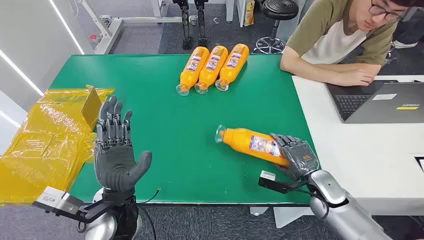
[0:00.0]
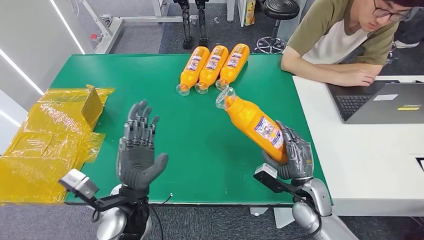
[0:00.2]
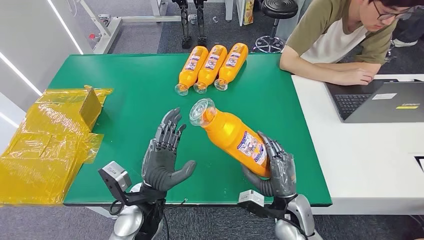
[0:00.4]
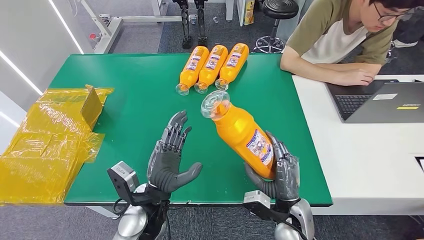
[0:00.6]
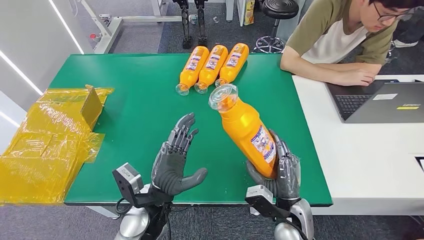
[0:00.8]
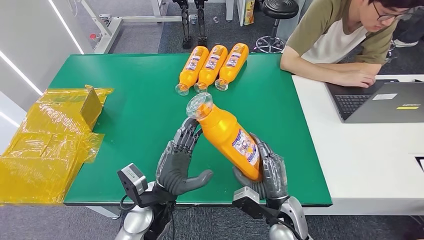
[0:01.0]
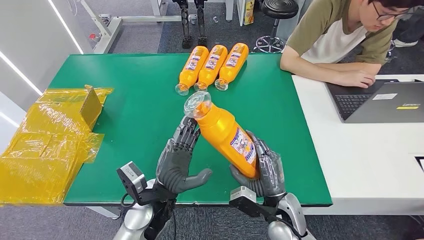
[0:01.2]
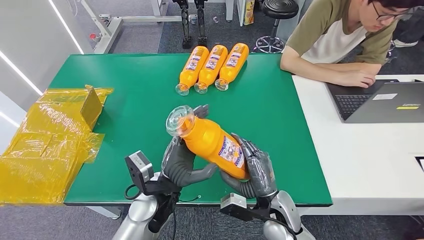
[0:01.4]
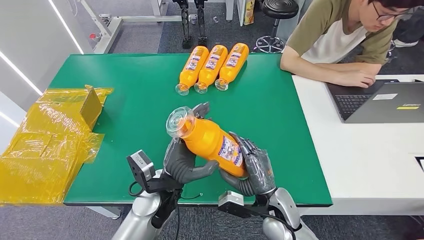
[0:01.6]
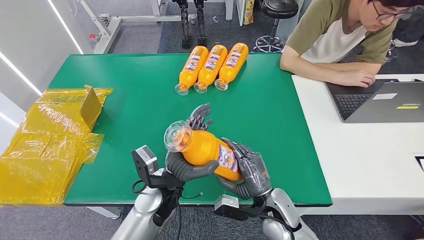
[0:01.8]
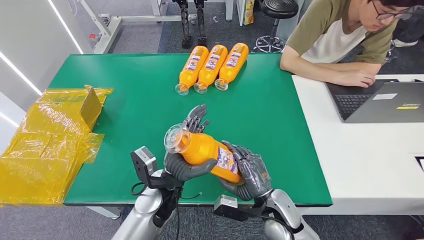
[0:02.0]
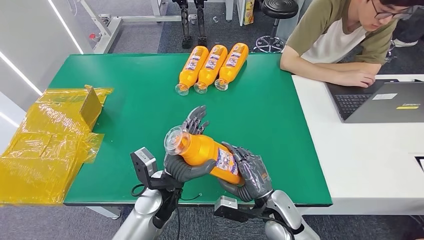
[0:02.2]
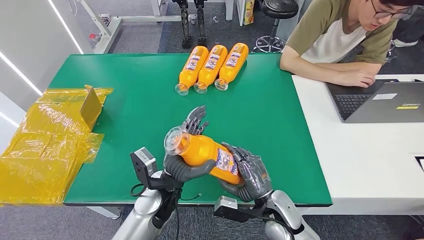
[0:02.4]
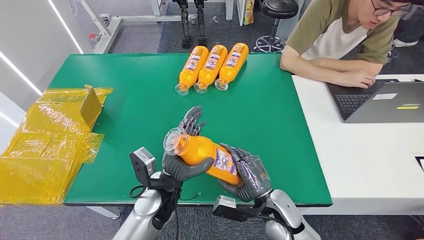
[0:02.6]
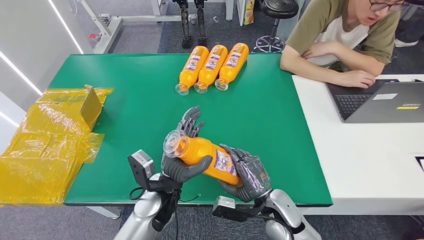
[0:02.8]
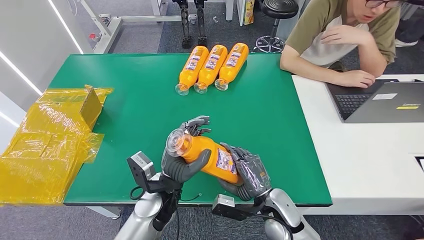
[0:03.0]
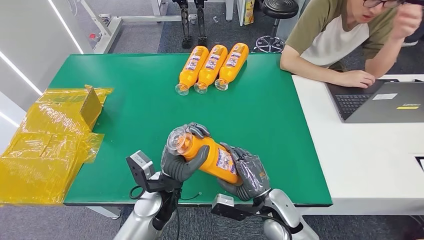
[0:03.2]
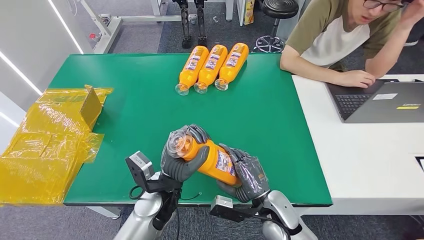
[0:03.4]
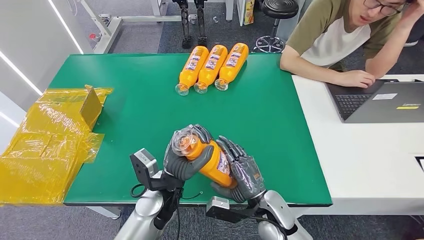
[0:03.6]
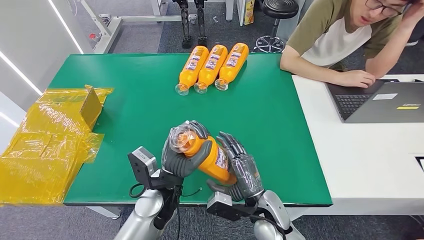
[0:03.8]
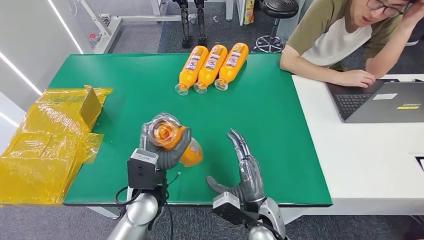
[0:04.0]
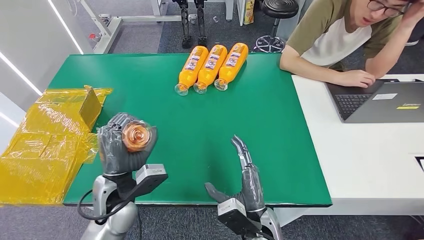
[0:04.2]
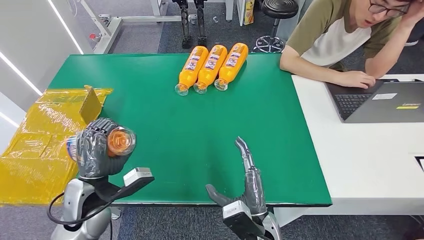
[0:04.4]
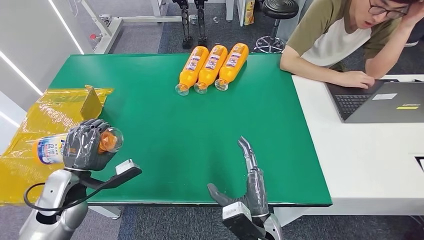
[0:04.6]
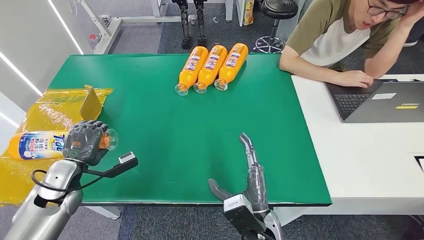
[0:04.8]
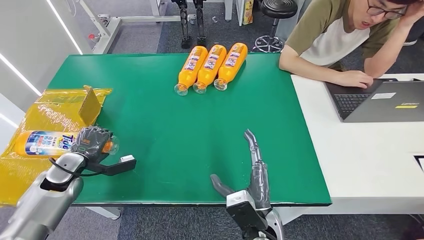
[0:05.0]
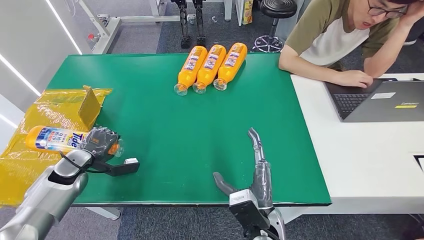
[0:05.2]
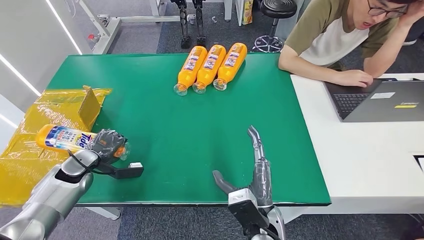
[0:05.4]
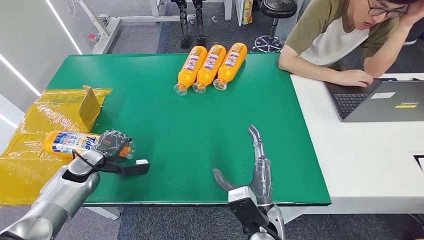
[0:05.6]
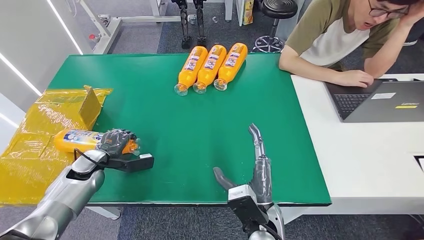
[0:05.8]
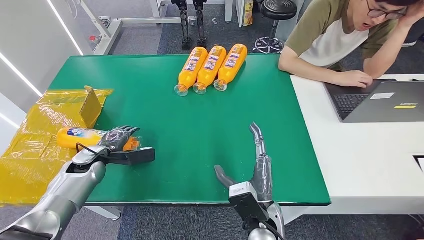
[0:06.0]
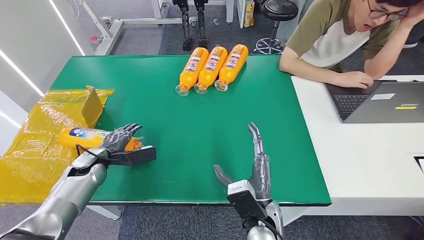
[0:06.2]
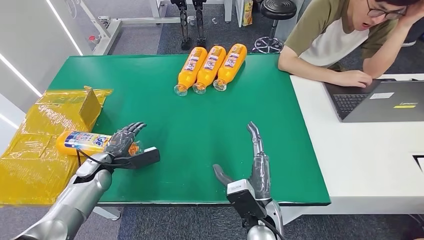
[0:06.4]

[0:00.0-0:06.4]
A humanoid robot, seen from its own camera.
Step, 0:00.0 to 0:02.0: Pick up the bottle from the table.
Step, 0:02.2 to 0:06.4: Turn the bottle to the front side.
0:01.6 to 0:03.2: The hands stay close to where they were, moving slightly.
0:03.2 to 0:04.8: The left hand goes some 30 cm to the left, while the right hand heads to the left and backward, covering approximately 10 cm.
0:04.8 to 0:06.4: The left hand is displaced downward by some 5 cm.

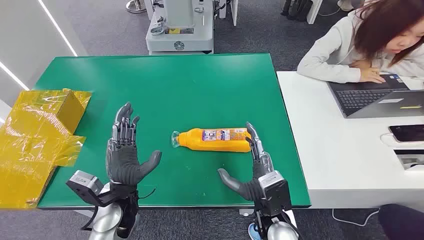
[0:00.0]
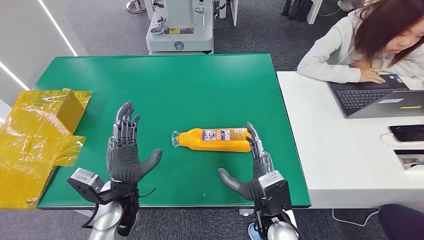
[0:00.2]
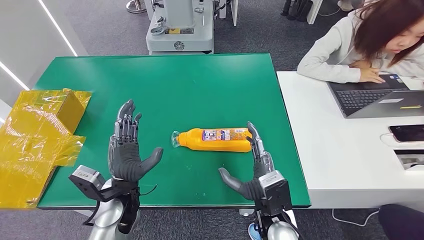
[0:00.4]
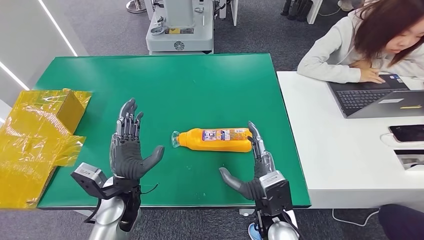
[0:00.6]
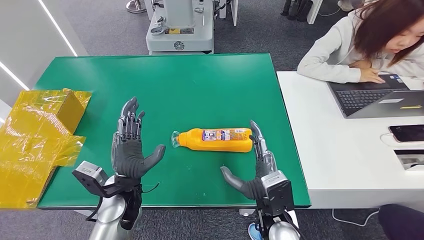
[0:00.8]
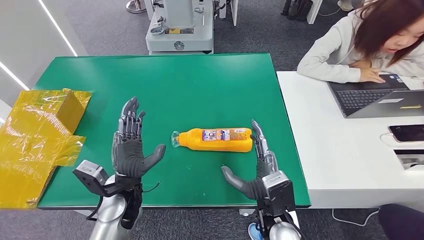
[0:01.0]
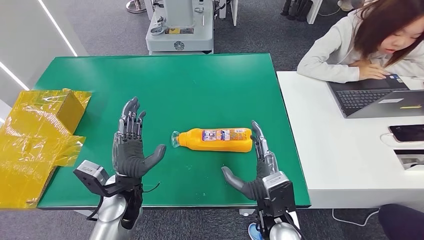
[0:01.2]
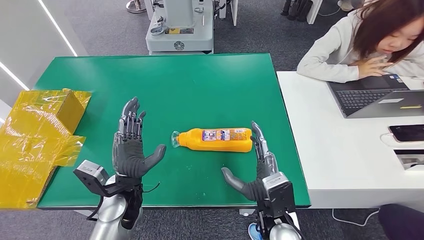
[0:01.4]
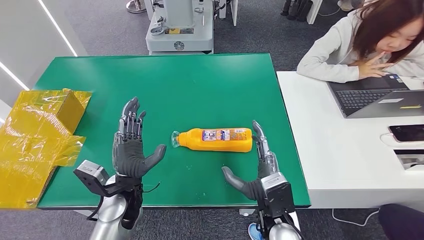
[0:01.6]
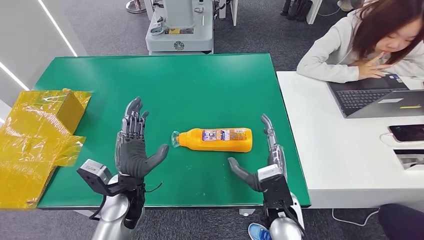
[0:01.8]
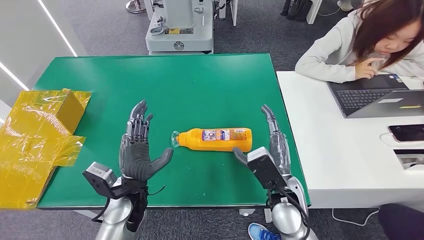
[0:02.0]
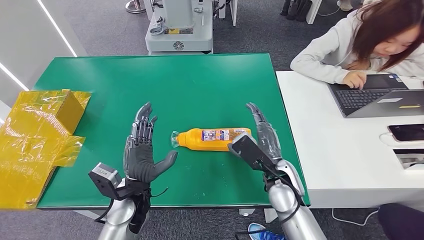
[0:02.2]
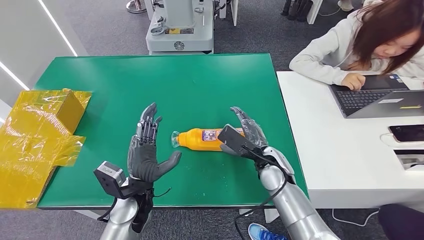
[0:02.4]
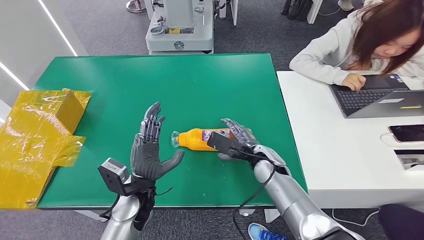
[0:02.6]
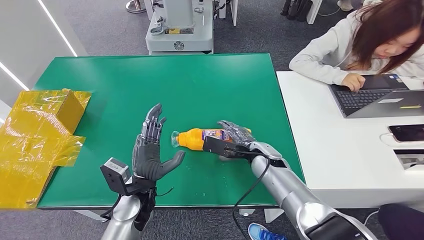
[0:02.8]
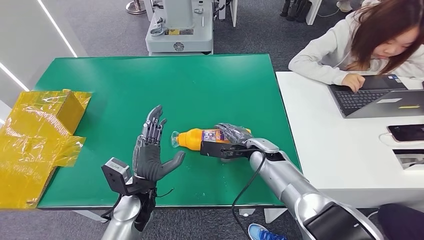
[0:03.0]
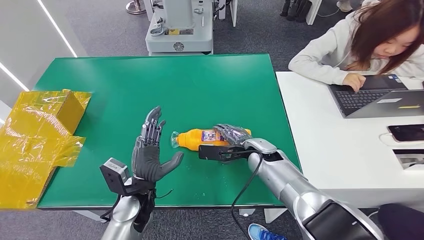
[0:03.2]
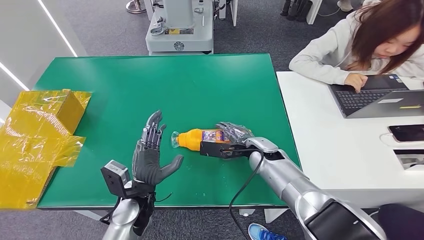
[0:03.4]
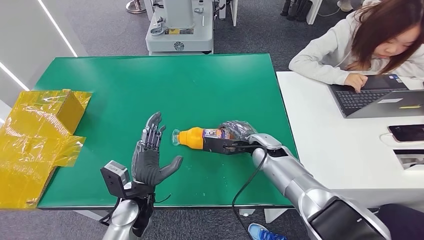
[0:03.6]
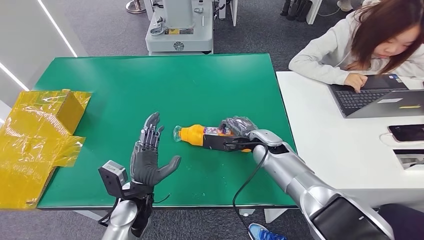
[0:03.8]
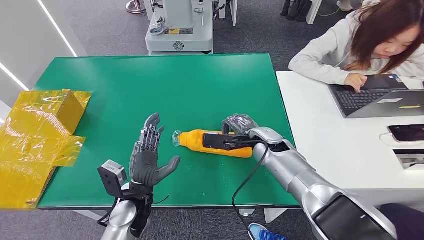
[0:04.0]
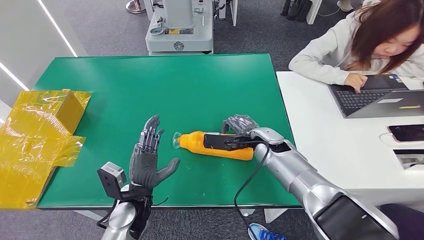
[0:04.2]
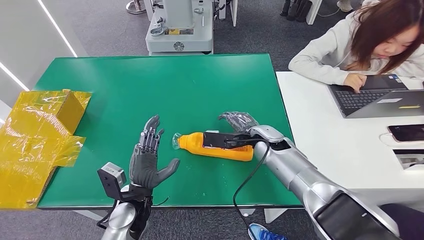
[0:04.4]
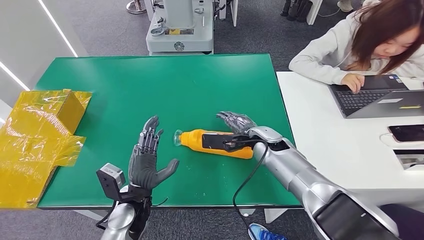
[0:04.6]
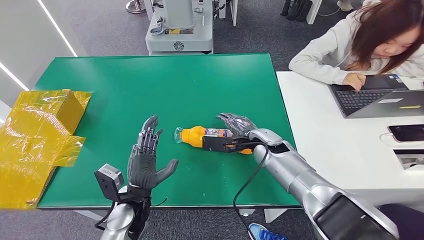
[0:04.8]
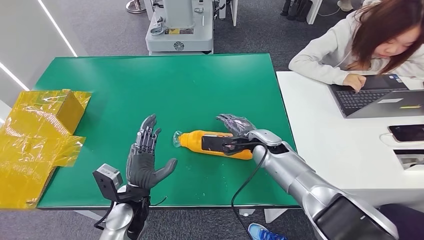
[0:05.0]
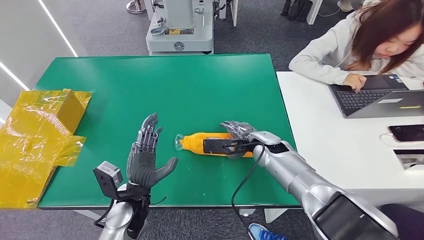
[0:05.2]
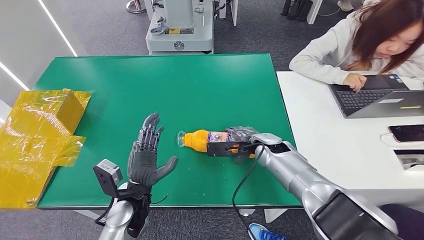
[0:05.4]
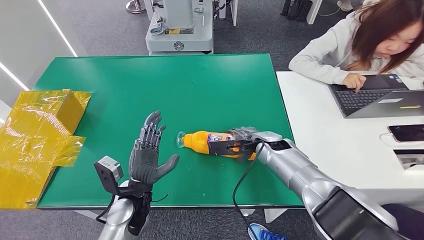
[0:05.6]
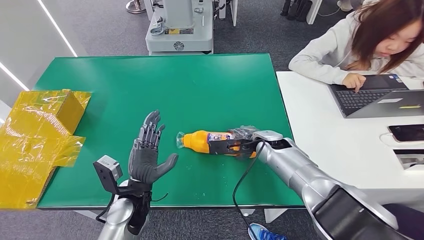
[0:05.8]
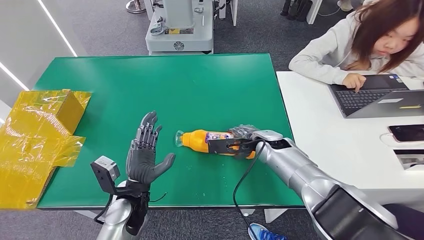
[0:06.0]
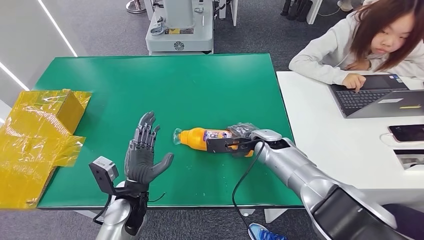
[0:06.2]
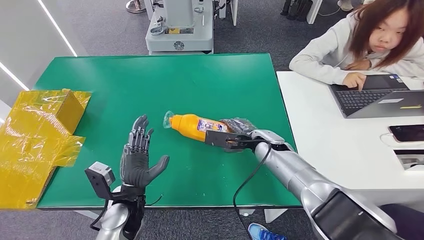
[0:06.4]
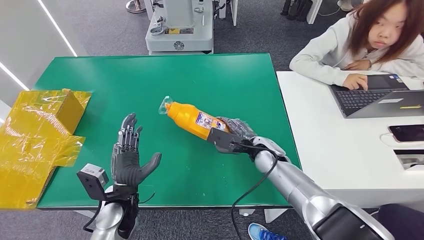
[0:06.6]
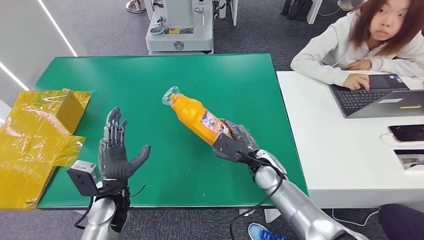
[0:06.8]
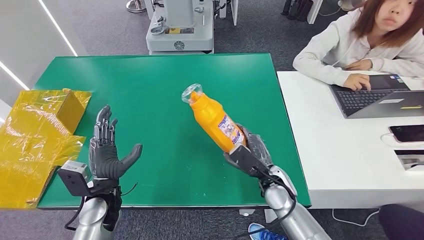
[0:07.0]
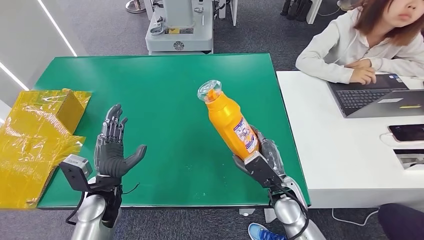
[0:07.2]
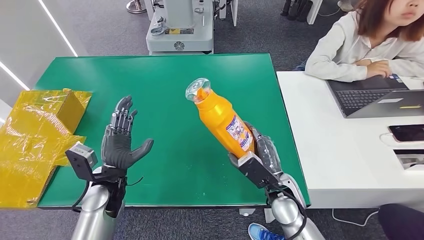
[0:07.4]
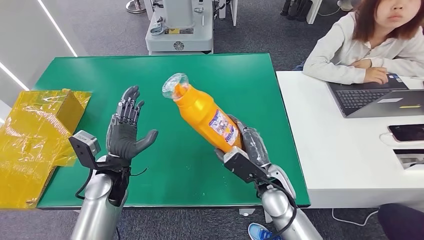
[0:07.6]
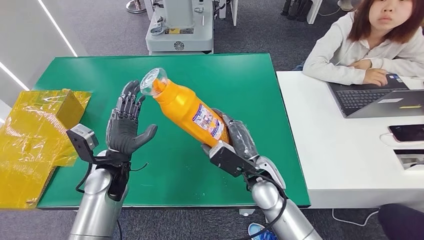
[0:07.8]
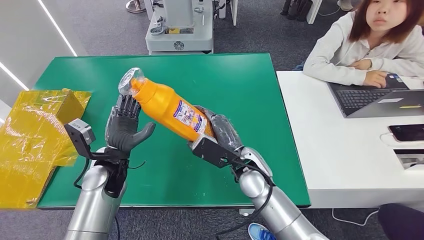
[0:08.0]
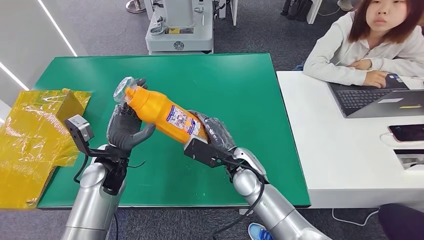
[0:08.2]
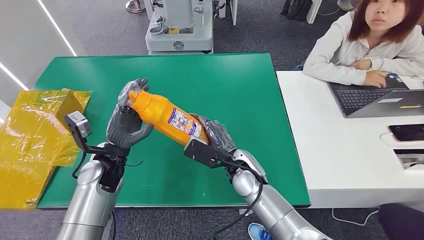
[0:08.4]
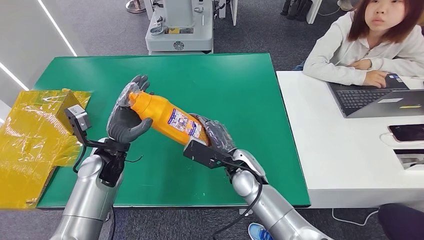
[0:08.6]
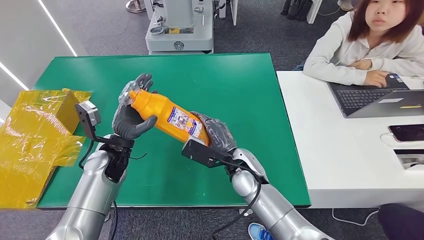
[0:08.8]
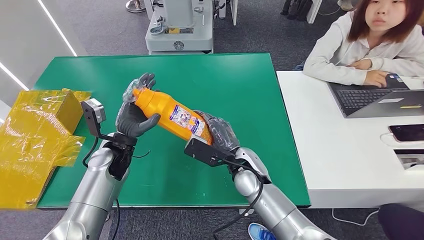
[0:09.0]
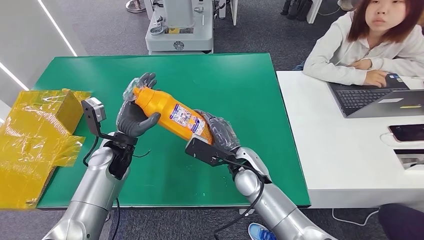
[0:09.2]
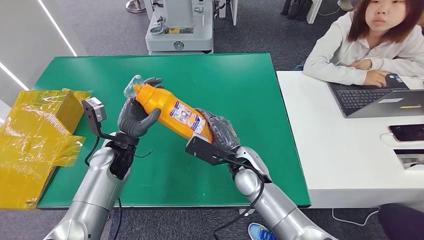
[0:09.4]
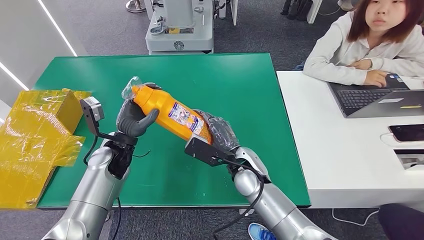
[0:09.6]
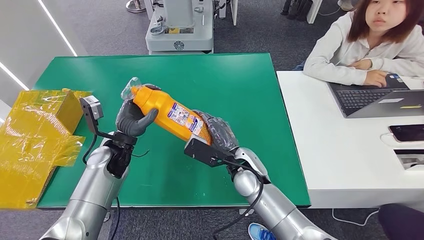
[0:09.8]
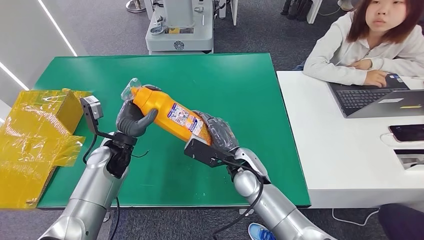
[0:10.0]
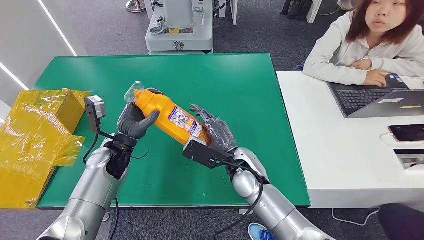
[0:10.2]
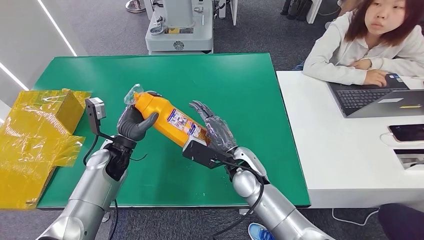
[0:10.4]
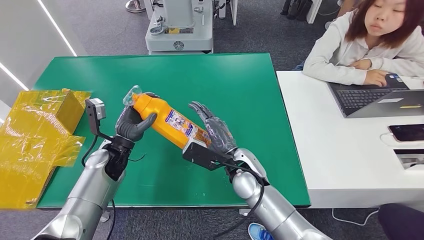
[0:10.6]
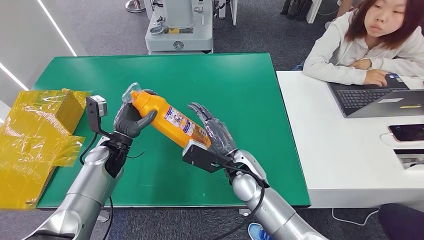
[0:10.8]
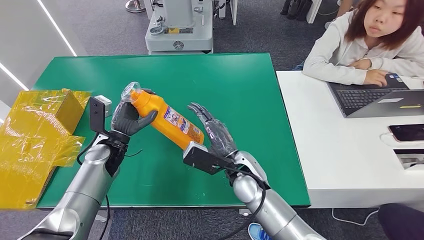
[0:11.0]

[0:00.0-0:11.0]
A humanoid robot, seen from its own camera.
Step, 0:00.0 to 0:07.6: Pick up the bottle from the table.
0:01.6 to 0:03.2: The right hand shifts about 20 cm forward.
0:03.2 to 0:04.8: The hands stay close to where they were, moving slightly.
0:07.8 to 0:09.4: The left hand ends up about 5 cm from where it was.
0:09.4 to 0:11.0: The hands make only small movements.
